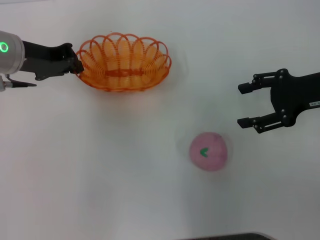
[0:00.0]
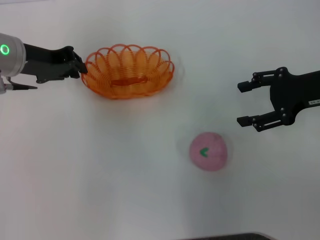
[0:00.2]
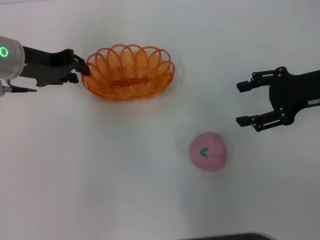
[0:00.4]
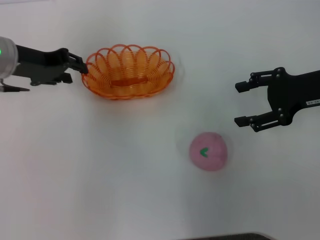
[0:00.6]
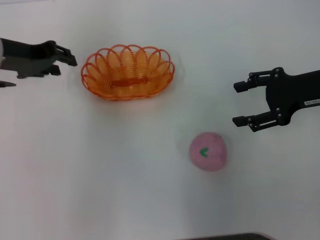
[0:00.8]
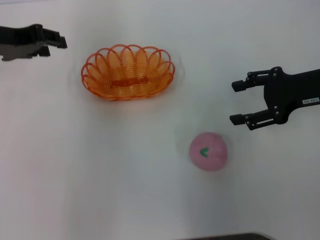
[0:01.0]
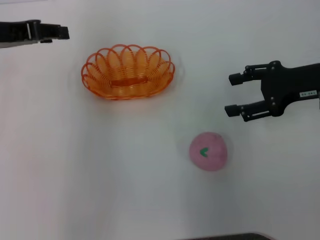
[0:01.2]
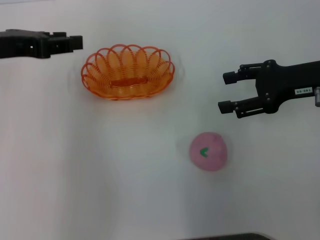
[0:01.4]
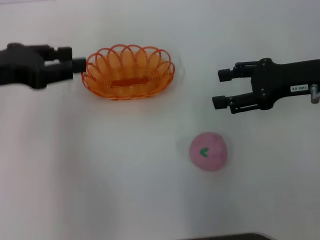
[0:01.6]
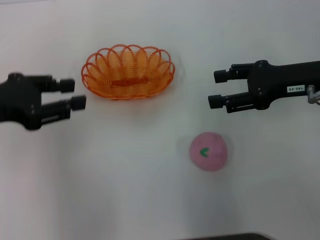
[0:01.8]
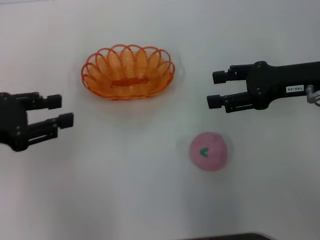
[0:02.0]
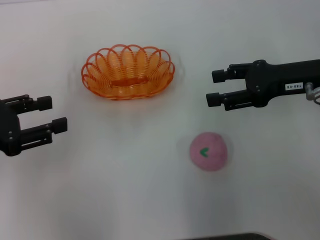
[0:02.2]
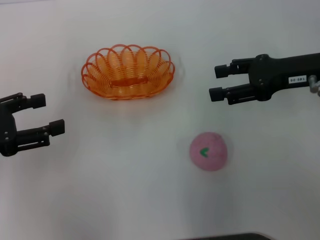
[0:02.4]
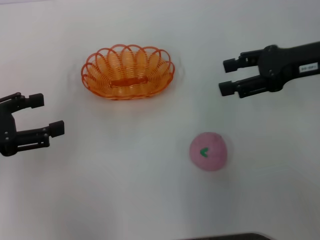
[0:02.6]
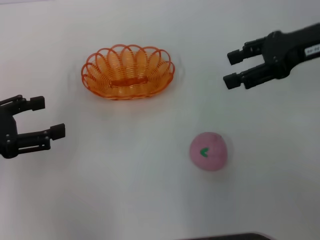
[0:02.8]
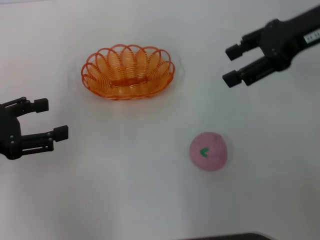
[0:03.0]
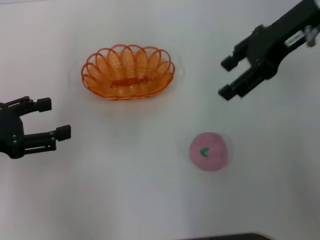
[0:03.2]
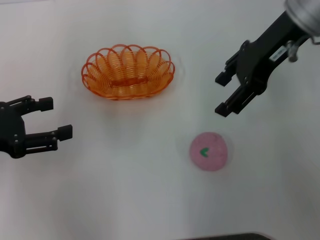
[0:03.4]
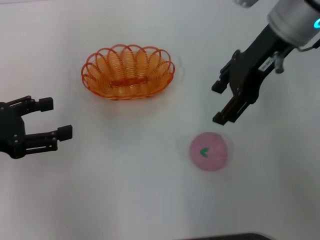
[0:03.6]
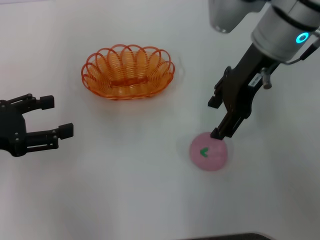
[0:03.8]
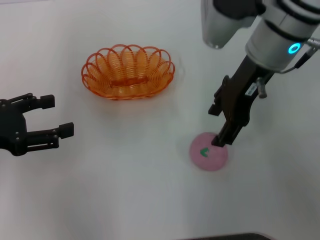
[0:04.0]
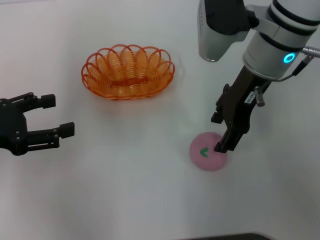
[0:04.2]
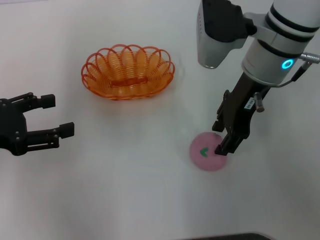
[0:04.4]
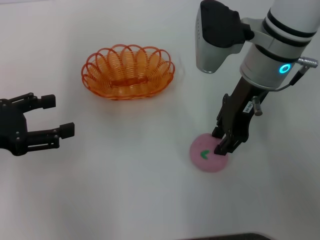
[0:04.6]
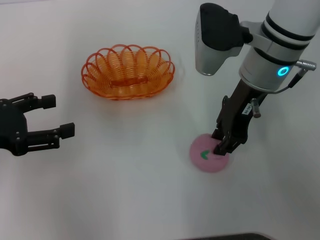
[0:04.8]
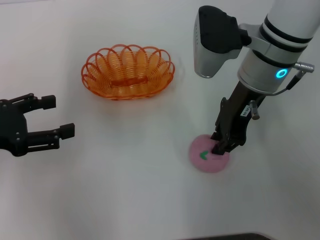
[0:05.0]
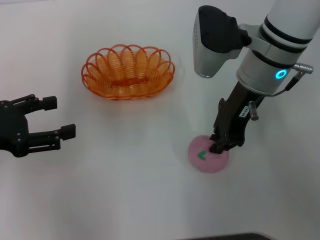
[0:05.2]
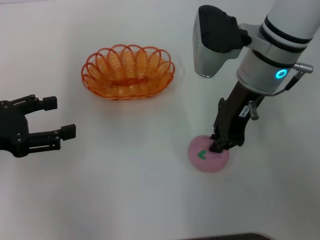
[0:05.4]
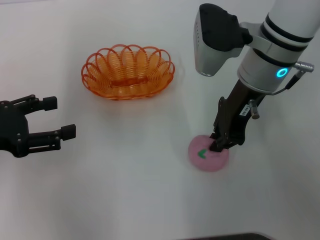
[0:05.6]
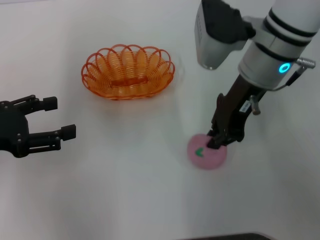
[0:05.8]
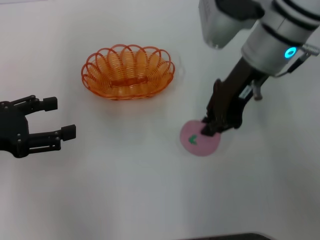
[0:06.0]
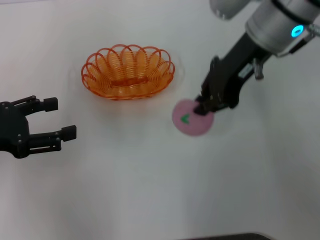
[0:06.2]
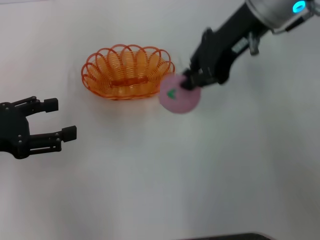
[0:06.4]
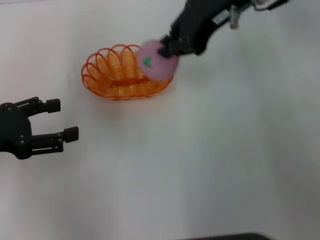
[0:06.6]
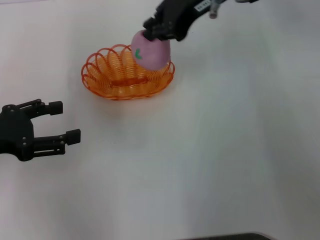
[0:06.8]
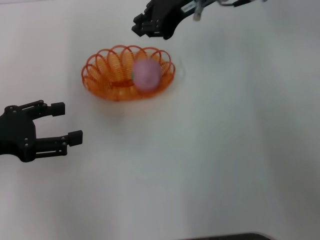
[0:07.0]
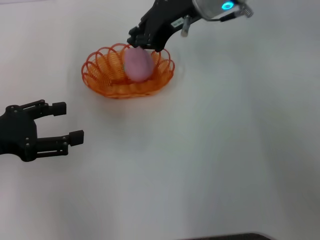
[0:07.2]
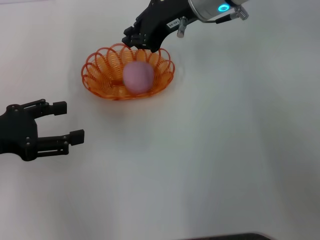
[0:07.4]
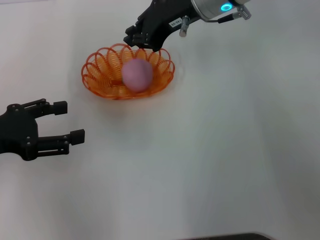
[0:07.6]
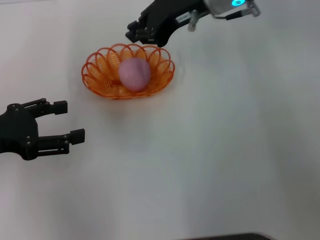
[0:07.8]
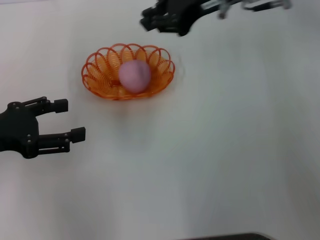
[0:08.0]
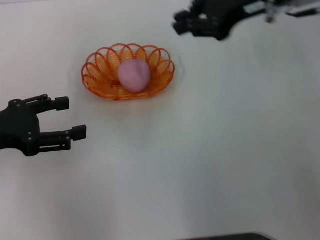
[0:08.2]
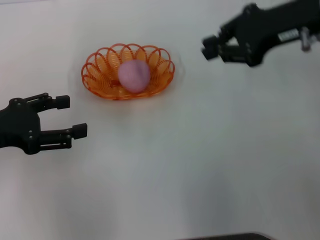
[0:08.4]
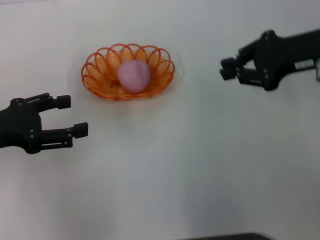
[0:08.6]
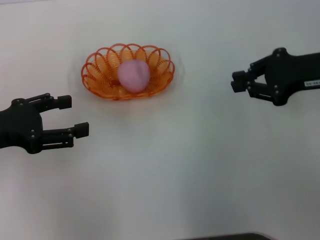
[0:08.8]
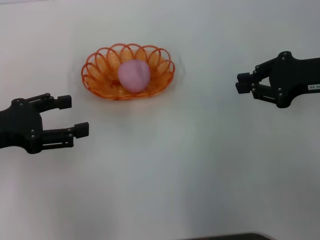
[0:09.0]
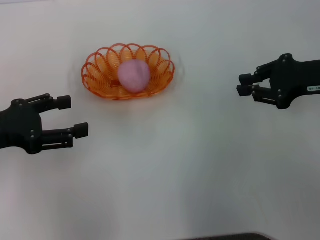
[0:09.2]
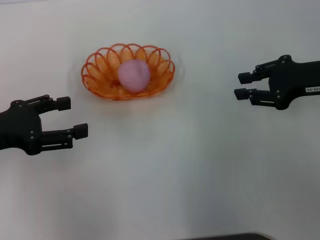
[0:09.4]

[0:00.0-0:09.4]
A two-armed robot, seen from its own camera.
Step, 0:01.8 to 0:06.2: Pick up the peach with the right gripper.
Step, 0:06.6 to 0:08.2: Place the peach into the basket with the right gripper.
0:00.0 to 0:01.6: The left gripper moves backward, roughly 10 cm, and opens its fingers.
0:01.6 to 0:03.2: The right gripper moves upward, to the left and forward, roughly 15 cm; the left gripper heads backward and downward, covering roughly 10 cm, and opens its fingers.
0:03.2 to 0:04.8: The right gripper moves downward and to the left, about 10 cm, and closes up.
0:04.8 to 0:06.2: The right gripper travels upward by roughly 5 cm, and closes up.
0:06.2 to 0:07.8: The right gripper shifts by roughly 5 cm.
0:07.8 to 0:09.4: The right gripper travels to the right, backward and downward by some 20 cm.

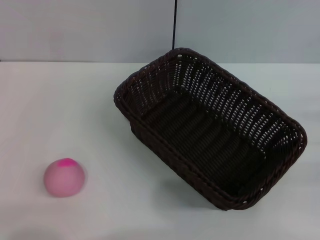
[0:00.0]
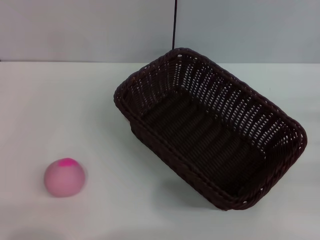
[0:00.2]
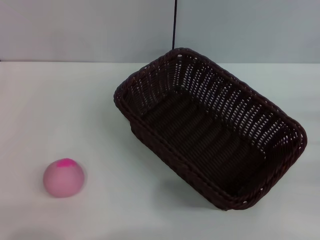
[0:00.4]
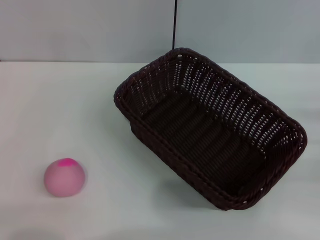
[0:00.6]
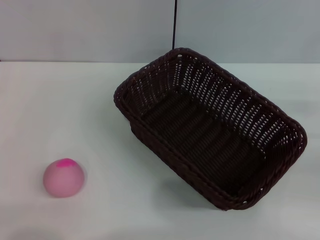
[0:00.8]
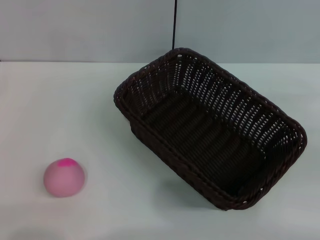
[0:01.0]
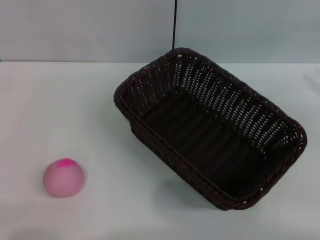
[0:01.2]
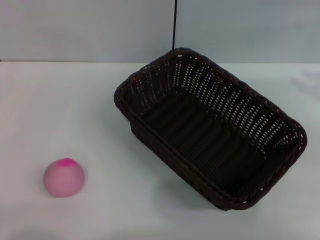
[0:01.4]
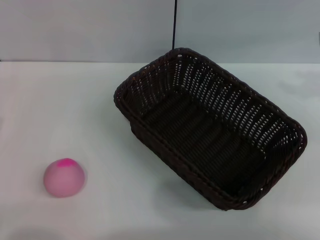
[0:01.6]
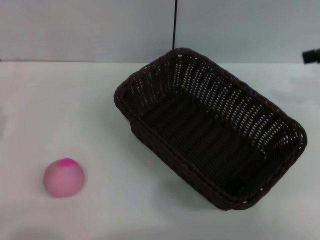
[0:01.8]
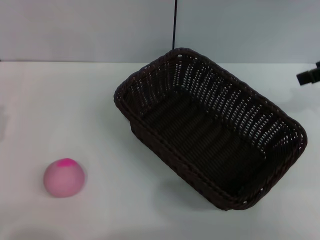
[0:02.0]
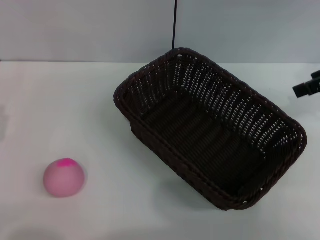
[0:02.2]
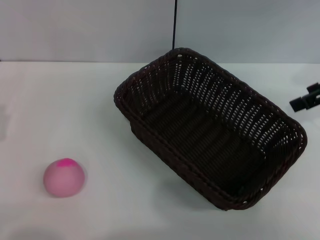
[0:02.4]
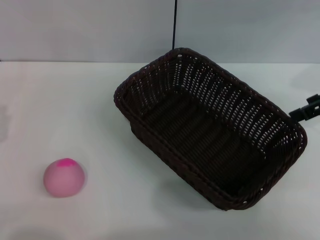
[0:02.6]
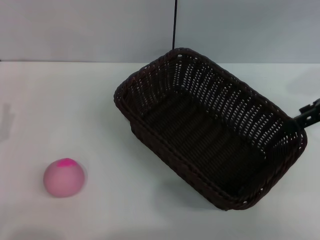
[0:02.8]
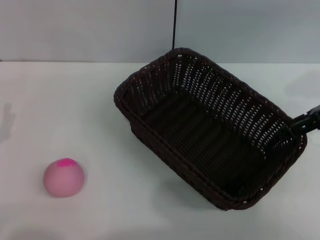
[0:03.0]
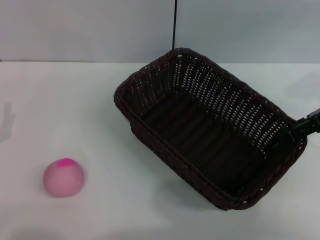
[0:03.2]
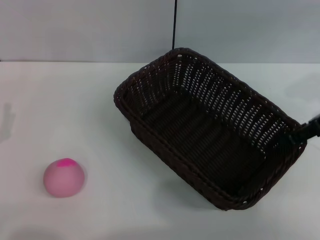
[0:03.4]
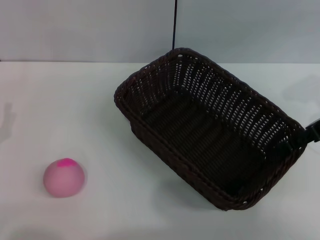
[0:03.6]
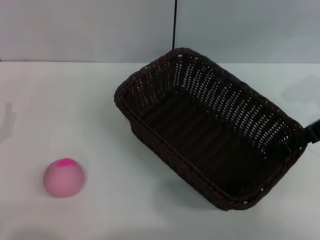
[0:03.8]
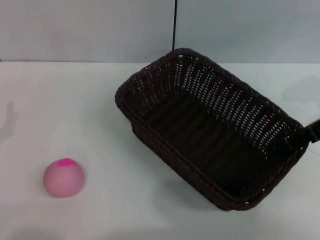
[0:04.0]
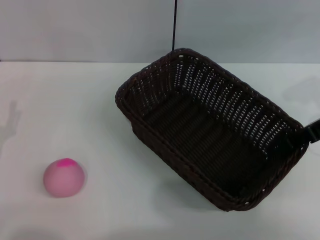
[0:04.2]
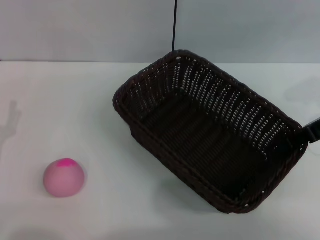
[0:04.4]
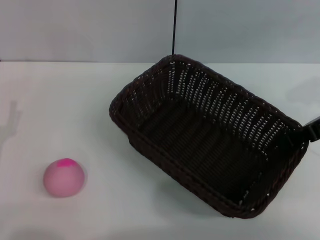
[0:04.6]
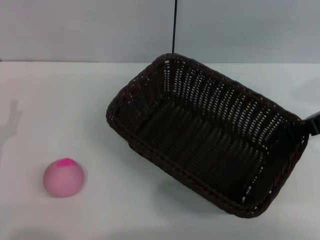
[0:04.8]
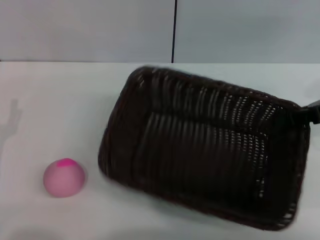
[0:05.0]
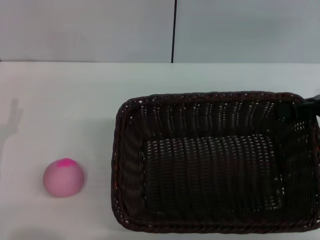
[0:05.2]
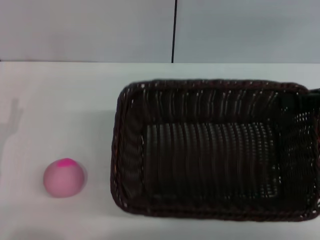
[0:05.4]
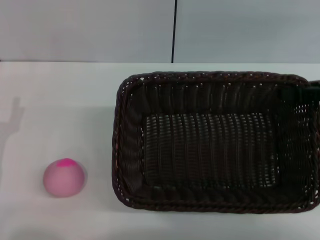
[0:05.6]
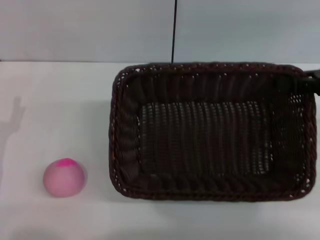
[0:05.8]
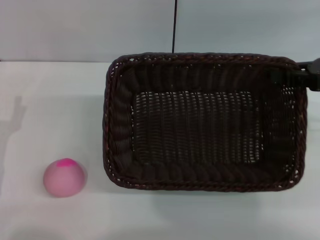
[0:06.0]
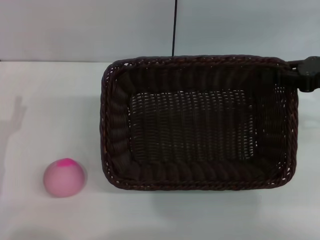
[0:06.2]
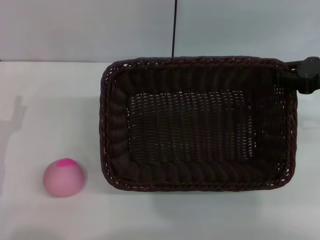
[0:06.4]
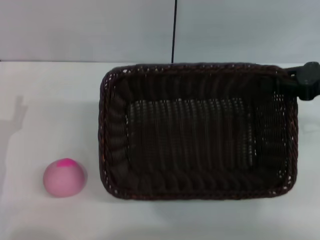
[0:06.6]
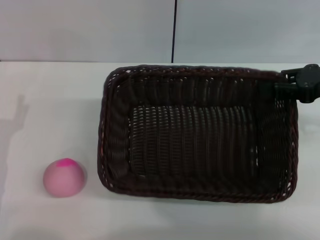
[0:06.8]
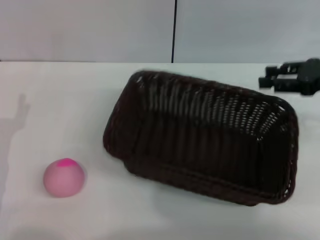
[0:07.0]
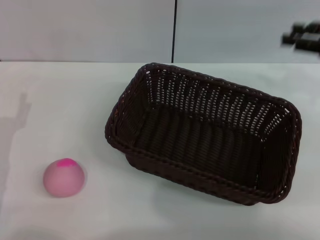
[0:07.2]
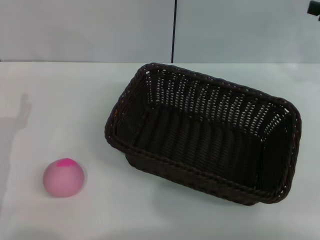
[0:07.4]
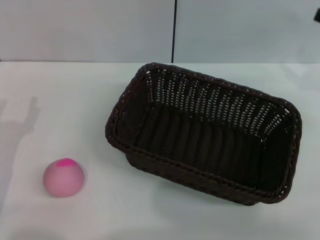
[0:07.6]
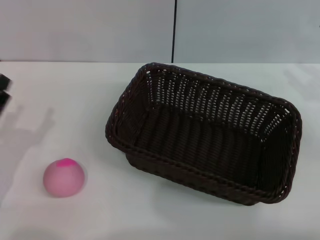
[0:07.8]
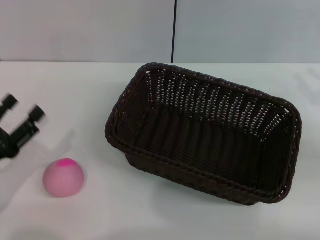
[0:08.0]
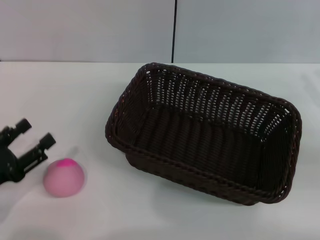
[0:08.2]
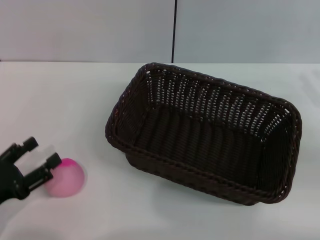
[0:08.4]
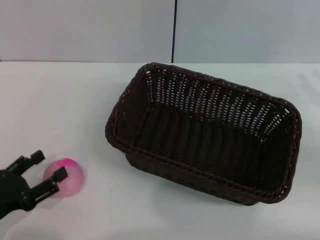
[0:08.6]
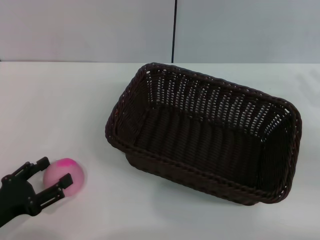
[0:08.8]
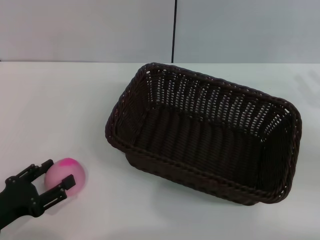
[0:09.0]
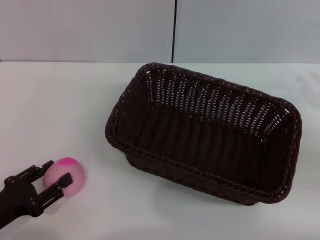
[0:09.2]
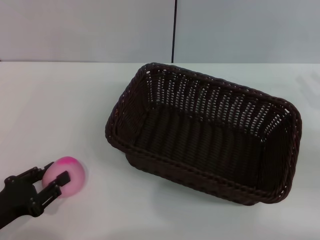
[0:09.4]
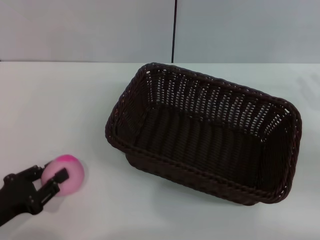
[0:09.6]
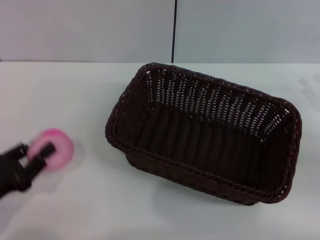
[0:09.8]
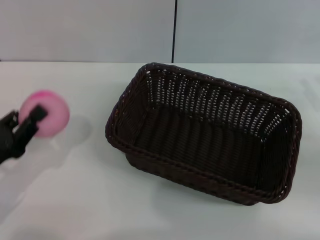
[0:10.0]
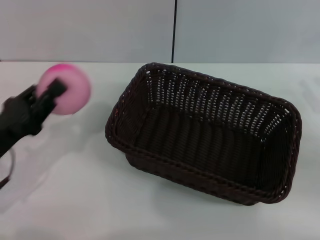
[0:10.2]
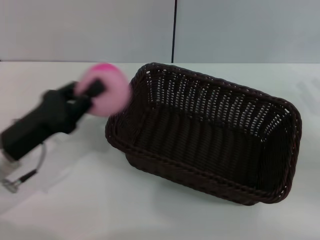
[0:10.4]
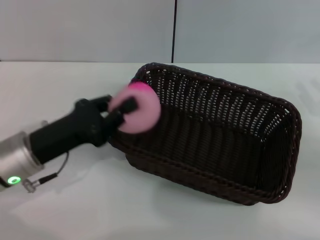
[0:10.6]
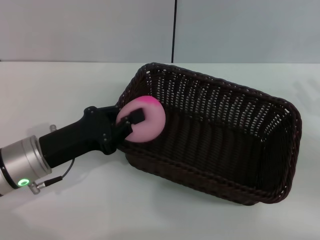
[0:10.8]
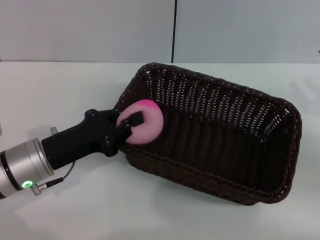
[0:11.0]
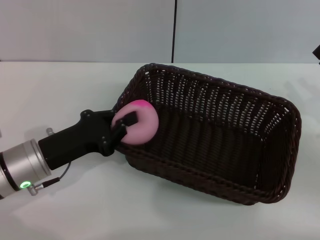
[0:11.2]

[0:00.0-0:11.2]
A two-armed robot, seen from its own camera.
Step, 0:00.0 to 0:05.4: Pick up the dark basket with the right gripper.
Step, 0:05.6 to 0:07.2: Place the dark basket in the center of view with the right gripper.
Step, 0:07.4 to 0:10.2: Pick up the peach with the left gripper.
0:00.0 to 0:01.6: The right gripper shifts some 25 cm upward and forward.
0:03.2 to 0:04.8: The right gripper closes its fingers.
0:06.4 to 0:08.0: The right gripper heads backward, covering roughly 5 cm, and opens up.
0:08.0 to 0:09.6: The left gripper closes up.
0:09.6 to 0:11.2: The left gripper moves forward and to the right, approximately 15 cm, and closes.

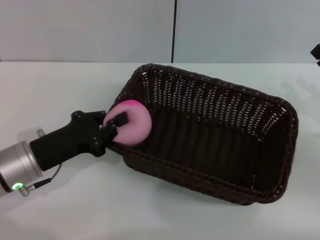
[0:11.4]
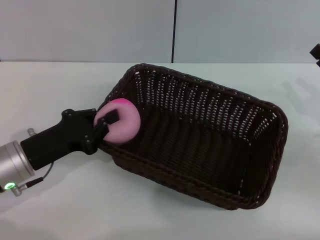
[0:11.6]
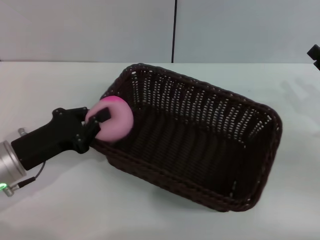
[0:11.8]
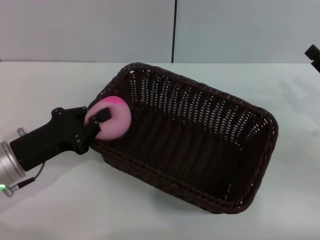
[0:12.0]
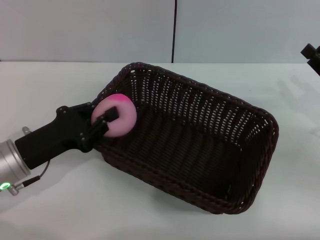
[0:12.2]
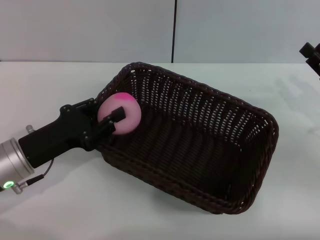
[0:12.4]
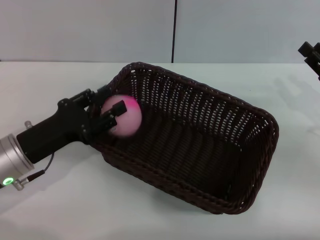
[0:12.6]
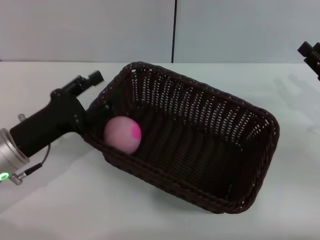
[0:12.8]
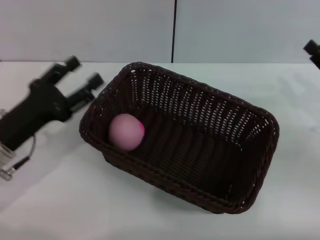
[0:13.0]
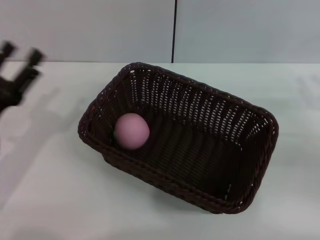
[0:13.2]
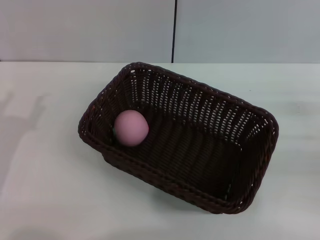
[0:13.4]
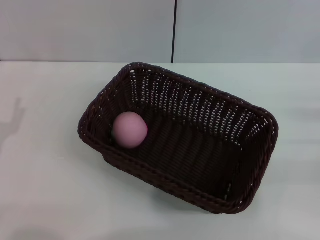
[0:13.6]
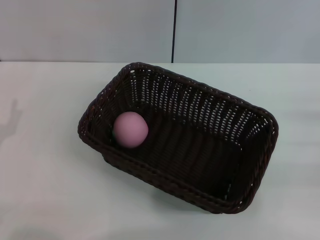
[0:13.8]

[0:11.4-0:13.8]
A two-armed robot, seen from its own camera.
Step, 0:11.4 to 0:12.8: Place the peach into the basket with the left gripper.
0:11.4 to 0:12.6: The left gripper opens.
0:12.6 to 0:13.8: The right gripper heads to the right, covering approximately 5 cm. The left gripper is displaced to the left and backward by approximately 10 cm, and opens its fingers.
